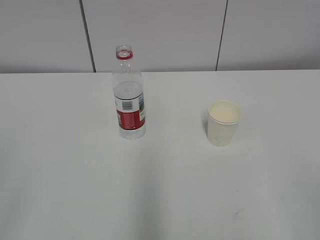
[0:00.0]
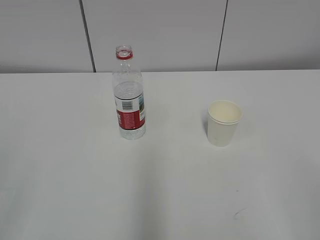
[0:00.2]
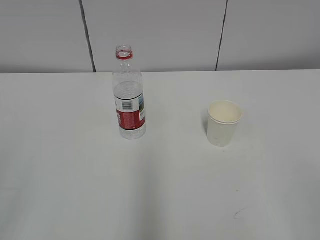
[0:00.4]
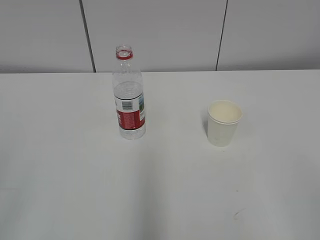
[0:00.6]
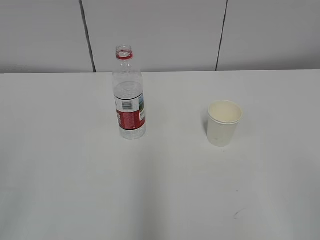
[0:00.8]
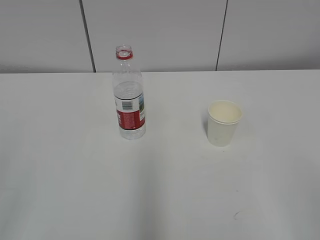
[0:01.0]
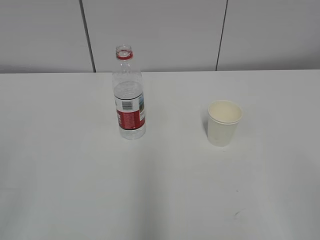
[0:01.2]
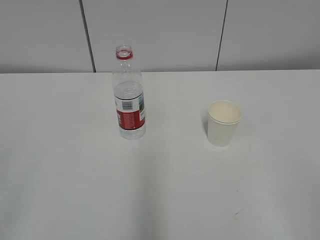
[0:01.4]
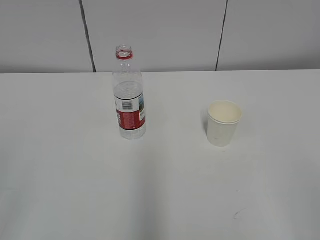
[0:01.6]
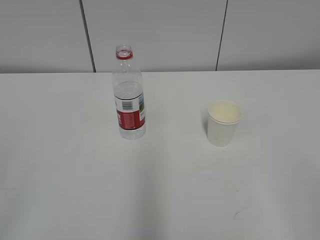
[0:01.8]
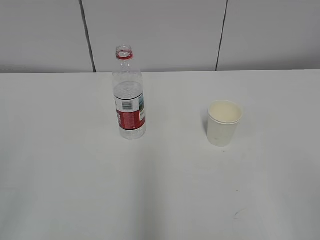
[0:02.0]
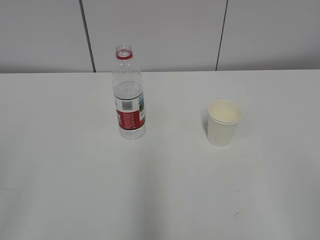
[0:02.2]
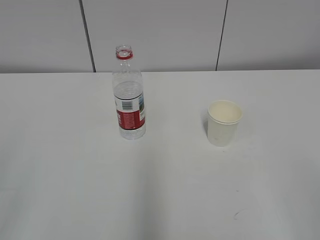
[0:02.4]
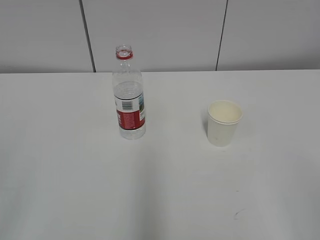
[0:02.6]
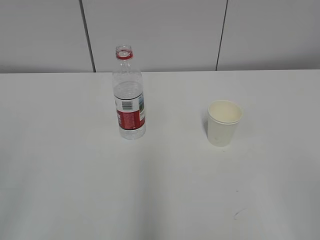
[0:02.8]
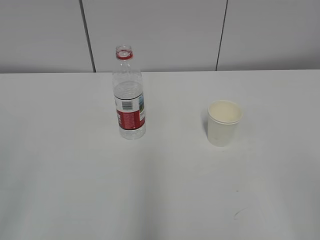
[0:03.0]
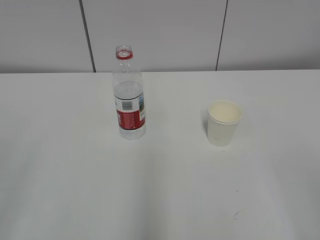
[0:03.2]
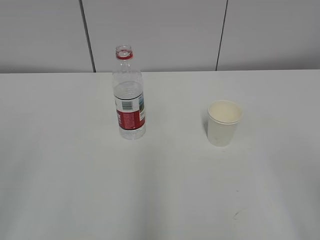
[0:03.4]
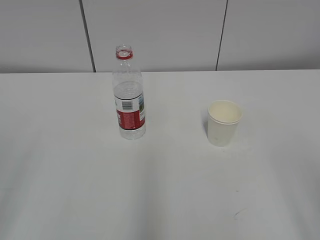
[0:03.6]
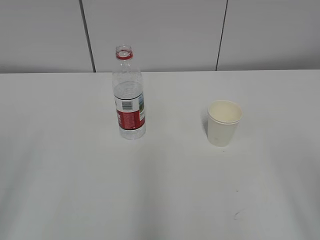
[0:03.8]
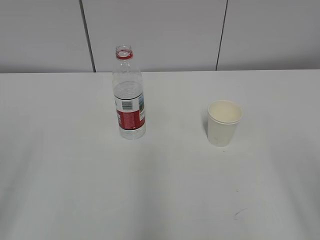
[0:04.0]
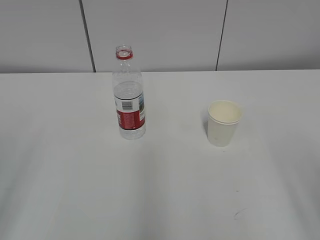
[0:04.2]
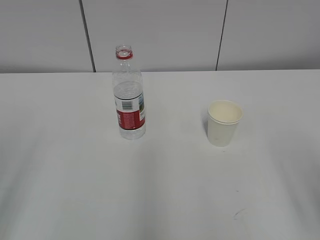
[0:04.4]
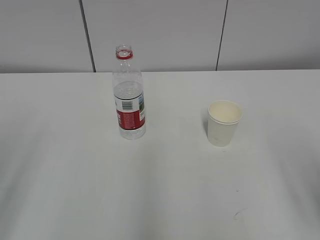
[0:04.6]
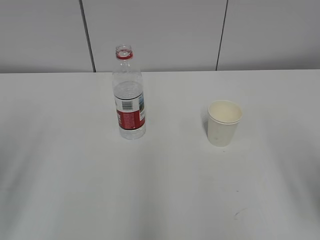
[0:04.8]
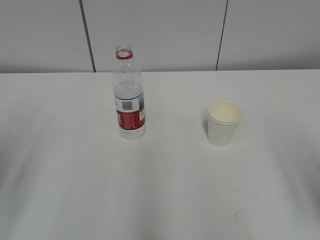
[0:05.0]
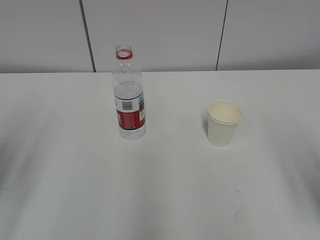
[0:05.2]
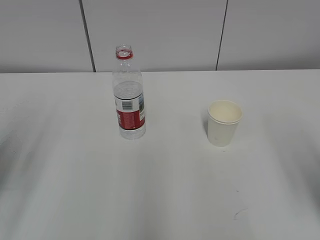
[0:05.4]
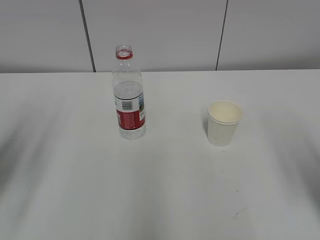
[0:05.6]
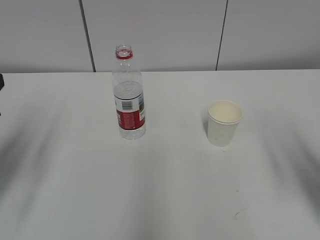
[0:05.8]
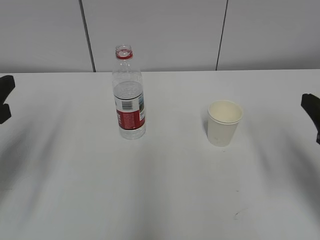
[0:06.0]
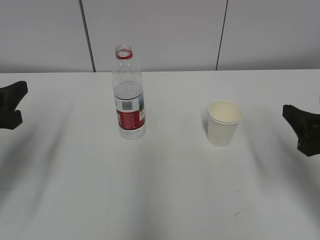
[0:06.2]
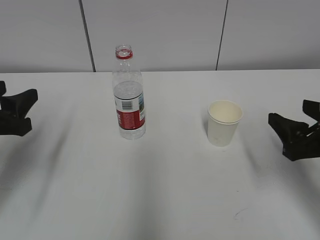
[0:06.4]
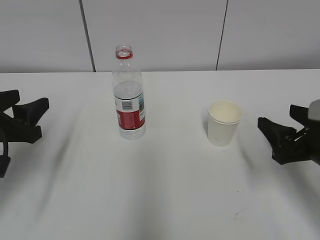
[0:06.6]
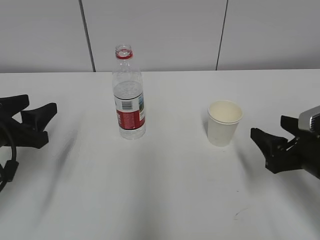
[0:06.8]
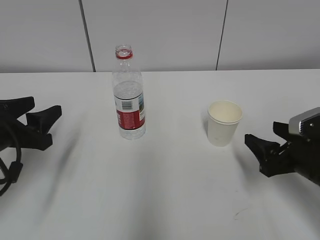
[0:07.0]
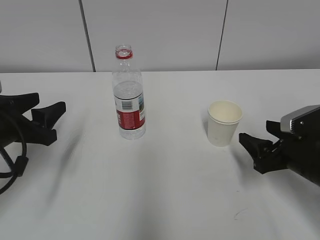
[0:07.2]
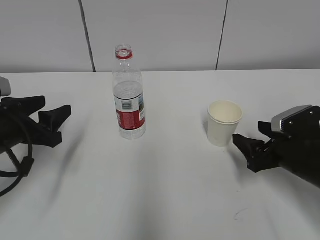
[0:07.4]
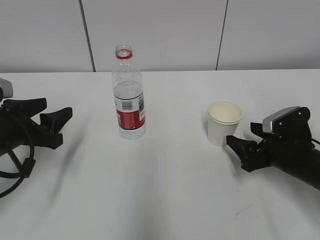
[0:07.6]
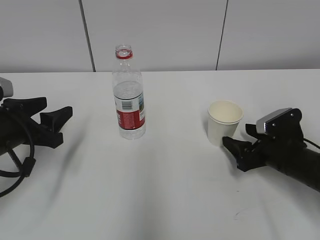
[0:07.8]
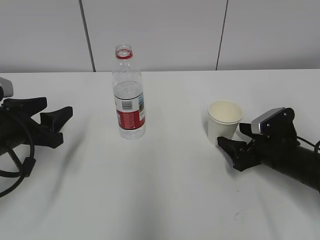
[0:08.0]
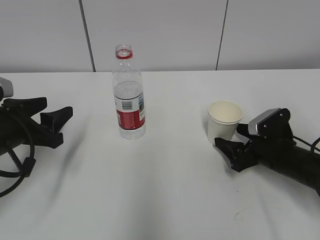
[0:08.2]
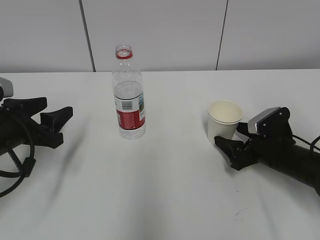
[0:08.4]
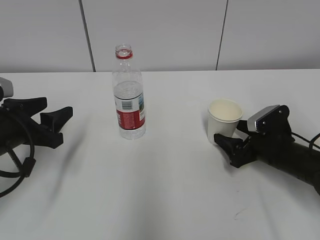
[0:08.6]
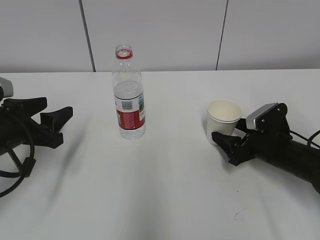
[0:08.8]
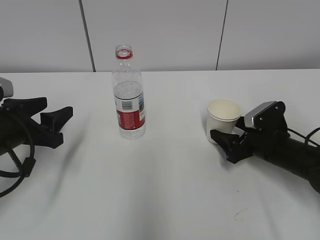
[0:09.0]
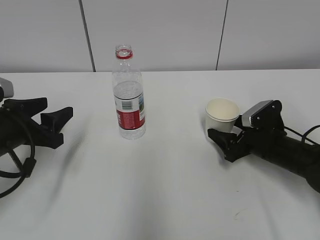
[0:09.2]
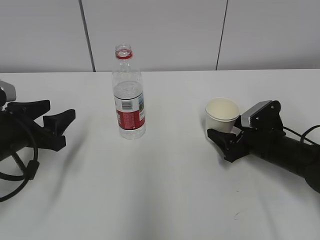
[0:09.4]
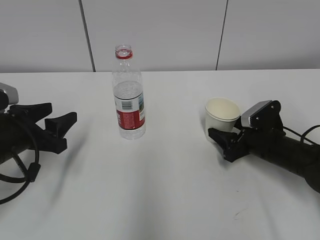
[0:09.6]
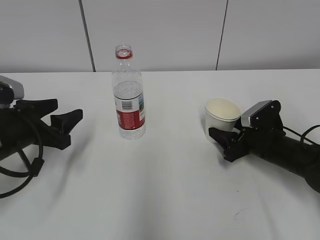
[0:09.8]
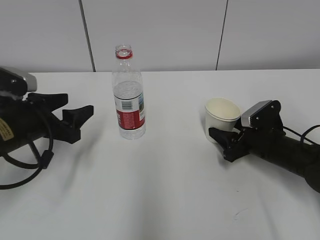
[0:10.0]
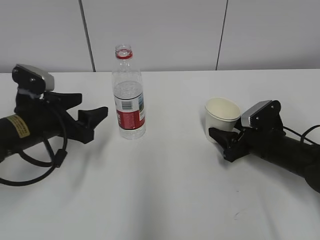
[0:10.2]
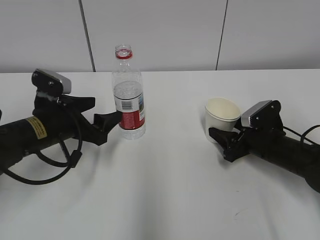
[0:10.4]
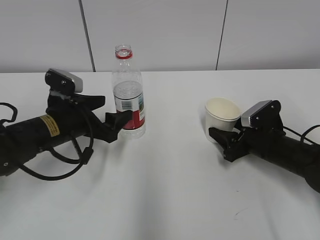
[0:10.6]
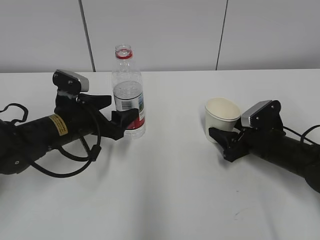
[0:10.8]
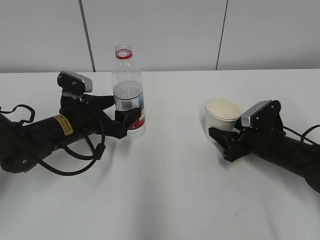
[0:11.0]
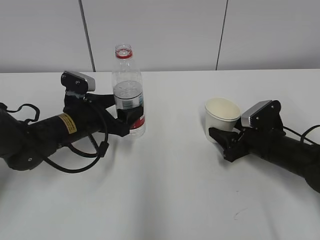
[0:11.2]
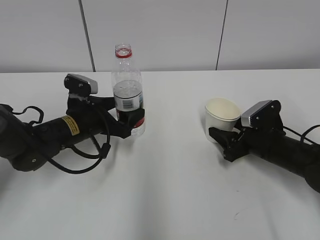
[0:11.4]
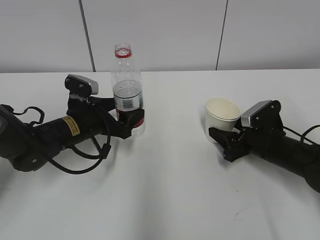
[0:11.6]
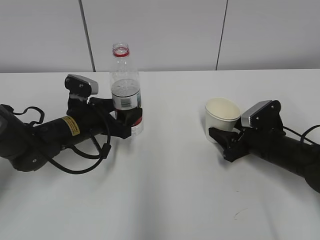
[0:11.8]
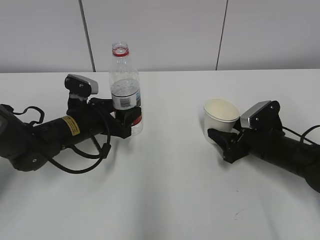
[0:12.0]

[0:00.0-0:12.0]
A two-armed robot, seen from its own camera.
Step, 0:00.0 to 0:09.8: Grab the paper cup with the right hand.
0:04.4 to 0:06.0: Both grippers move forward, some 15 cm.
0:06.0 to 0:07.6: The right gripper is displaced downward and forward by roughly 20 cm. Meanwhile the left gripper heads downward and forward, covering approximately 10 cm.
0:07.6 to 0:09.0: The right gripper changes place by roughly 5 cm.
0:09.0 to 0:10.4: The right gripper closes. The left gripper shifts roughly 5 cm to the right, and opens up.
0:10.4 to 0:12.0: The left gripper moves roughly 5 cm, and closes its fingers.

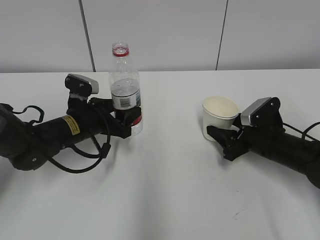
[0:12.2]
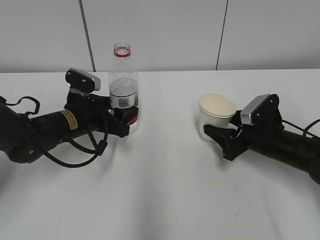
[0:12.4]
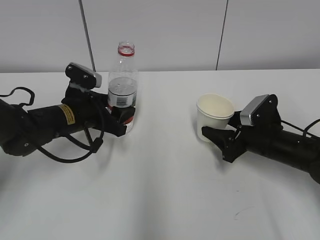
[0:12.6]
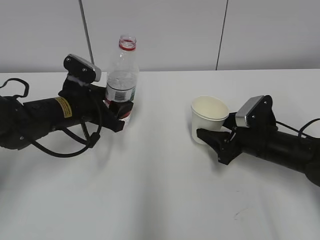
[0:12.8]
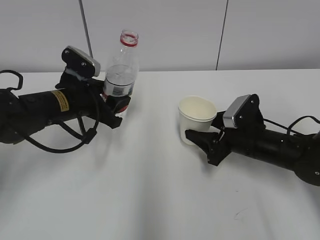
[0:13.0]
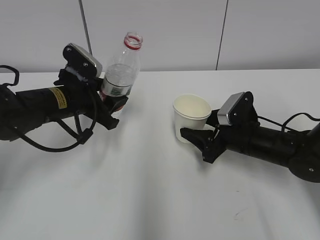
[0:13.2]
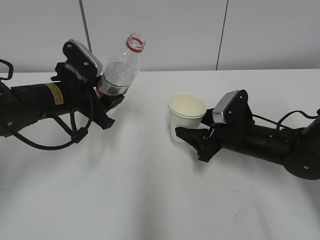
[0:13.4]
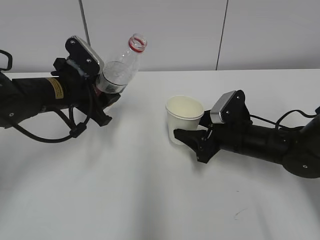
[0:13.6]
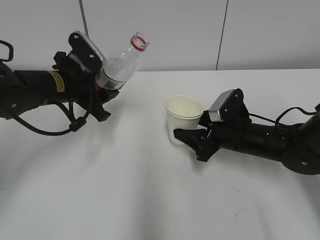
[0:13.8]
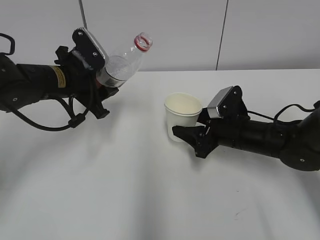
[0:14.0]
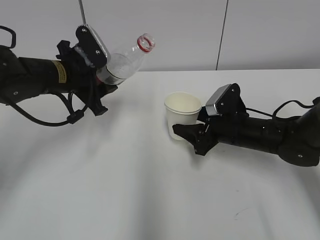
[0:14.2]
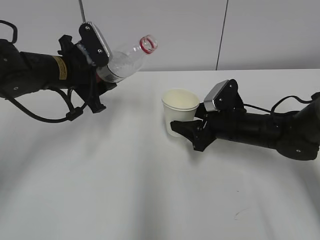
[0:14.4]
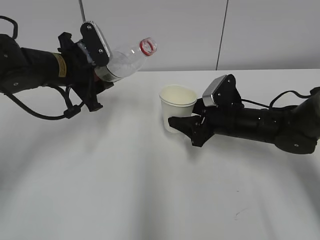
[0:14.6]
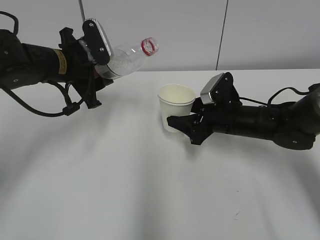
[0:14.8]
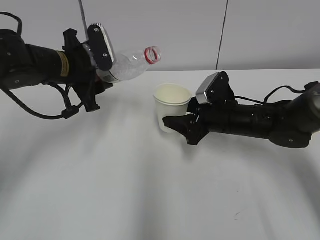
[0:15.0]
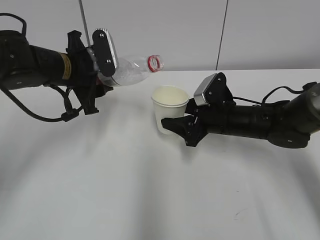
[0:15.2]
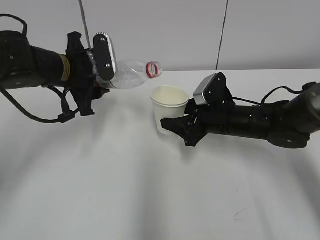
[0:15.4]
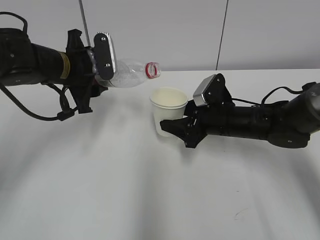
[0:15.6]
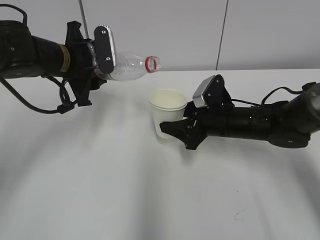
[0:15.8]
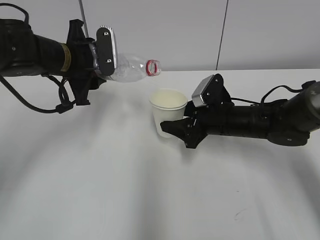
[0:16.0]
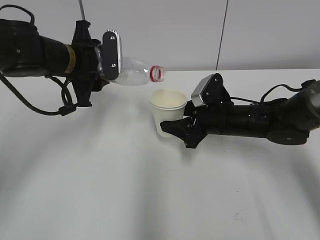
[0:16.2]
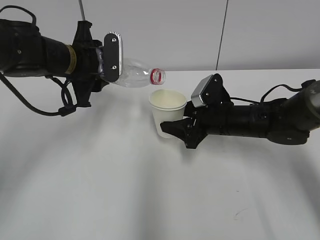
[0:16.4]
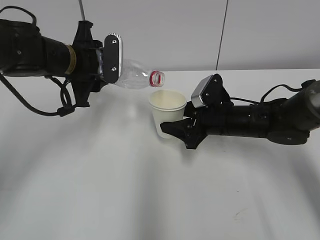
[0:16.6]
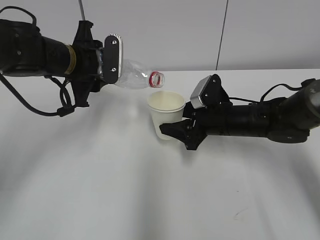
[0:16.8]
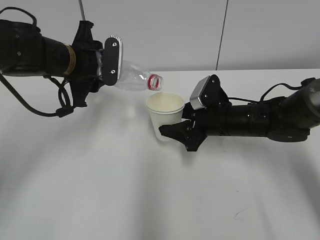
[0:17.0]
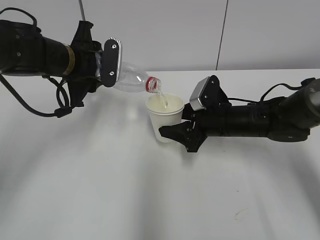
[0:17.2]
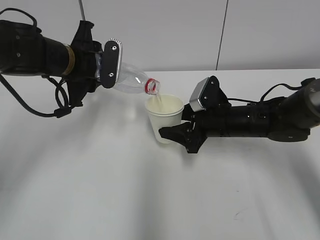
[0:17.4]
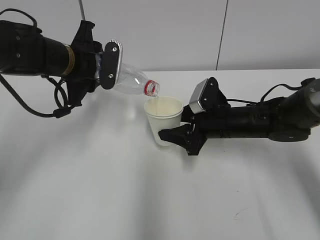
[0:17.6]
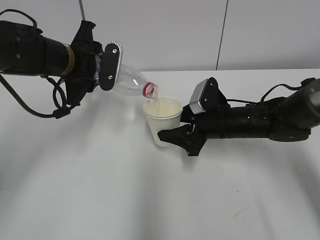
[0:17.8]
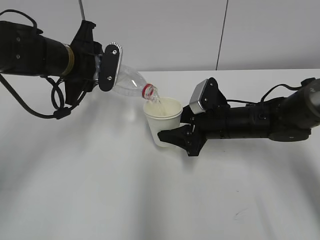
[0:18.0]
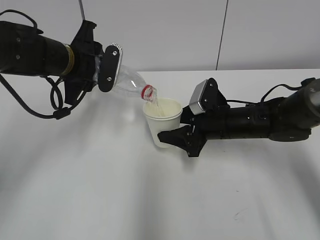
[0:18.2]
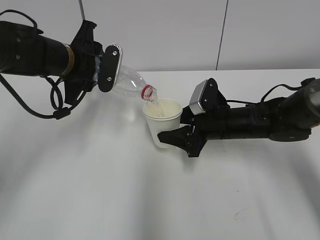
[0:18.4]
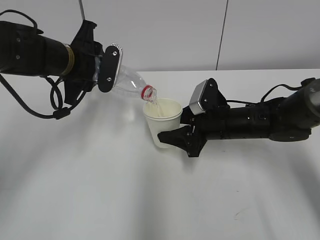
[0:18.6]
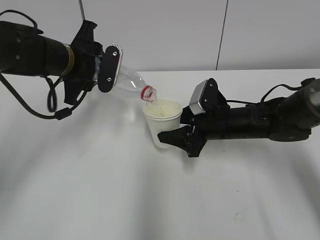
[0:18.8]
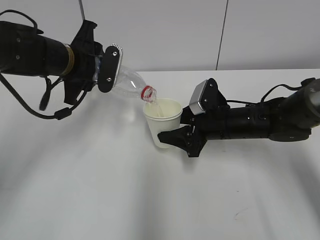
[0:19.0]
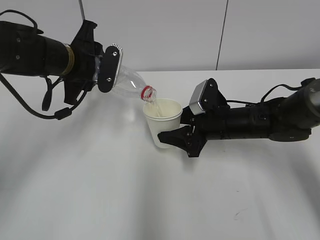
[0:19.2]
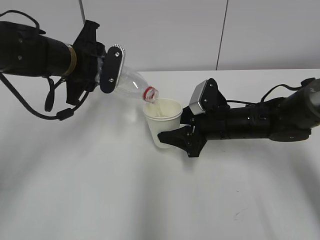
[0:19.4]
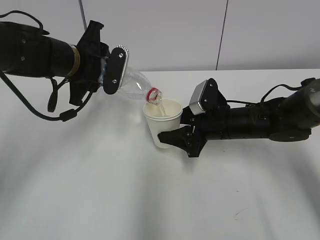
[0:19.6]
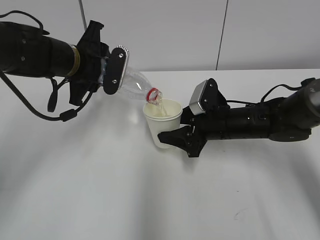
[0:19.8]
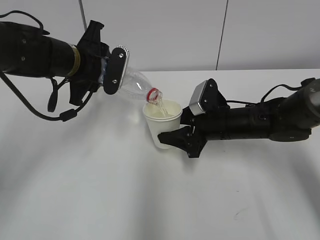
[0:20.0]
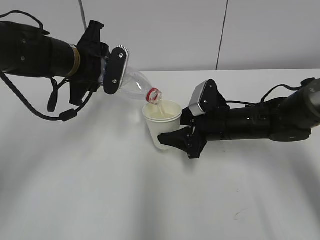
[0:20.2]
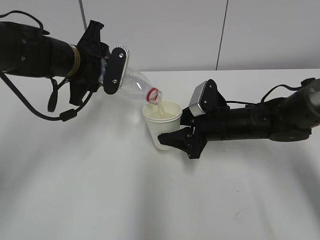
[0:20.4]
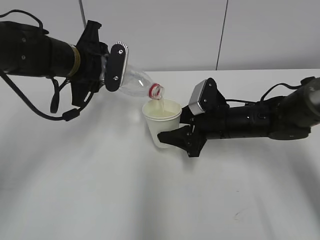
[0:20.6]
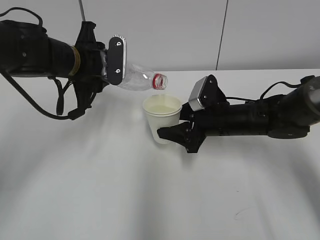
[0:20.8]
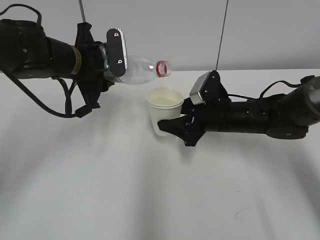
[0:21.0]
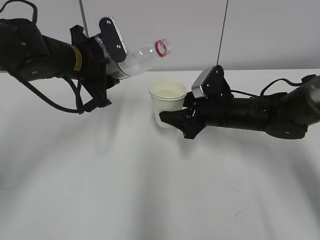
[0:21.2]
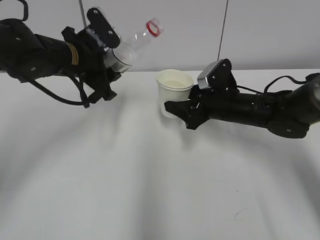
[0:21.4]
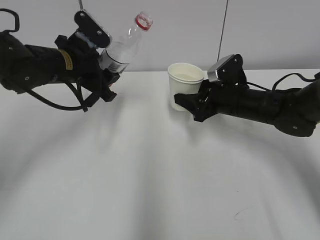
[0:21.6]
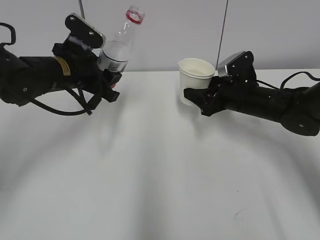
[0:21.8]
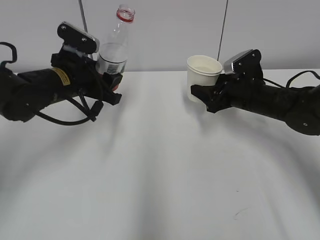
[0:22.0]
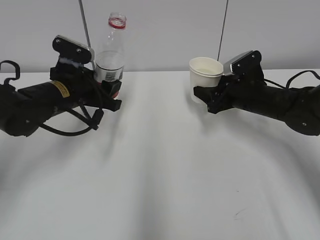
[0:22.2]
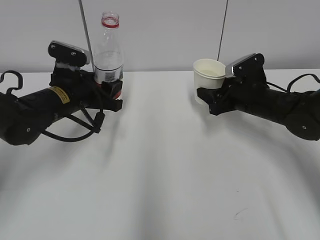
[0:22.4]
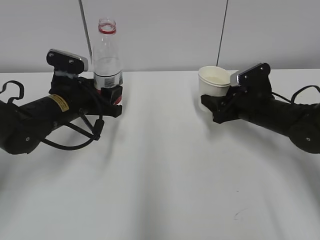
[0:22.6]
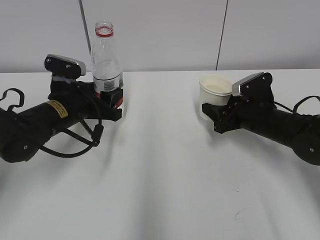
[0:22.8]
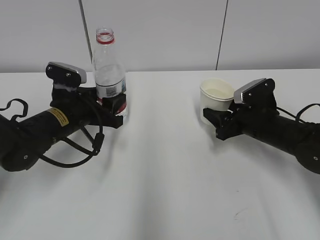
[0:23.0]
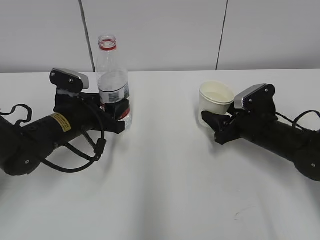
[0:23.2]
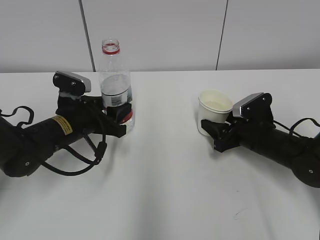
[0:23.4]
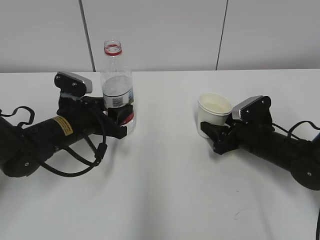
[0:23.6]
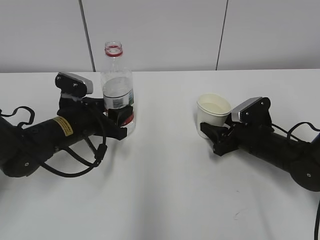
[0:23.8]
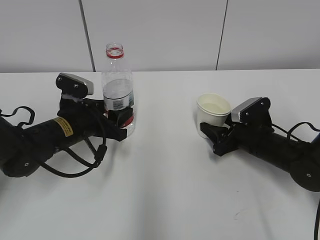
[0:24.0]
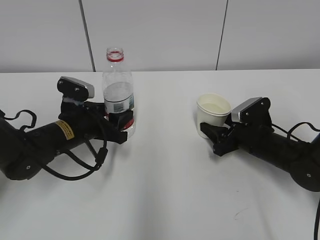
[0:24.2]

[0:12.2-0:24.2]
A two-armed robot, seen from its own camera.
Step, 0:12.2 to 0:14.2: Lift the paper cup with the right hand.
Step, 0:14.4 to 0:17.2: Fill water with the right hand.
Step, 0:14.4 to 0:17.2: Pour water with the left hand.
Step, 0:17.4 to 0:18.6: Collect water with the left hand.
0:12.2 to 0:13.8: The right gripper heads to the left, covering roughly 5 cm. Meanwhile the left gripper goes approximately 10 cm upward.
0:15.2 to 0:16.6: The grippers move only a little.
0:16.6 to 0:18.2: There are only small adjustments of the grippers.
0:18.2 to 0:19.8: Both grippers stay about where they are.
0:21.2 to 0:22.6: The left gripper travels downward by about 10 cm, while the right gripper is displaced to the right by approximately 5 cm.
0:22.6 to 0:24.2: The right gripper travels downward by approximately 5 cm.
